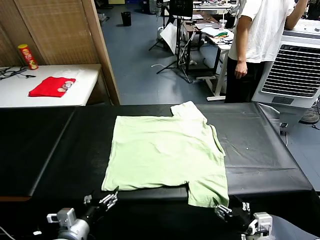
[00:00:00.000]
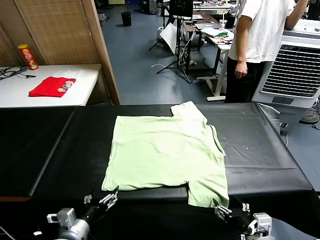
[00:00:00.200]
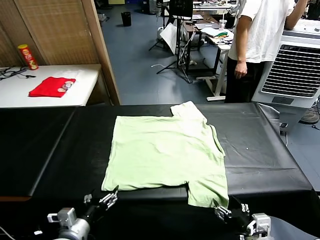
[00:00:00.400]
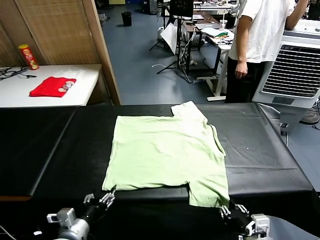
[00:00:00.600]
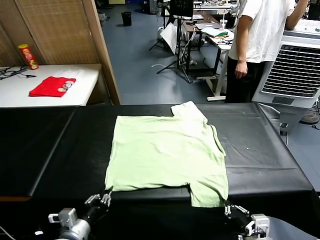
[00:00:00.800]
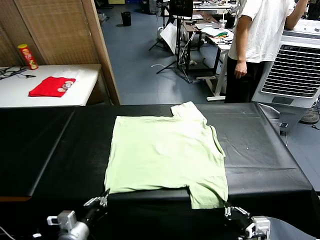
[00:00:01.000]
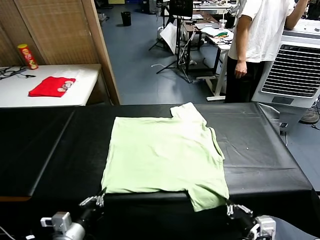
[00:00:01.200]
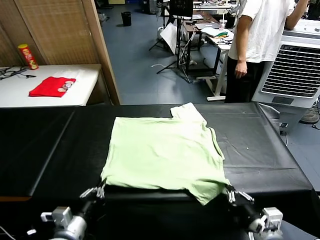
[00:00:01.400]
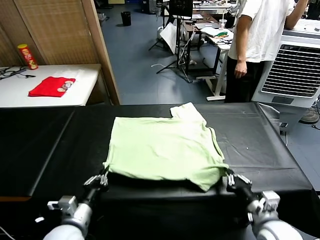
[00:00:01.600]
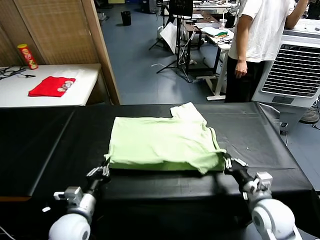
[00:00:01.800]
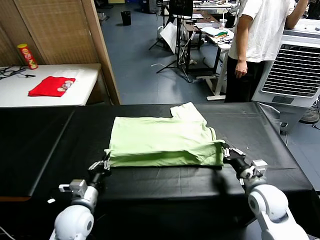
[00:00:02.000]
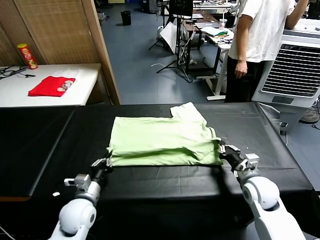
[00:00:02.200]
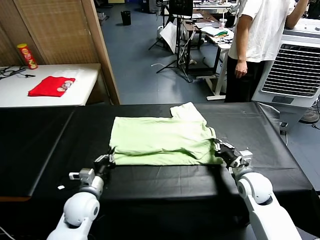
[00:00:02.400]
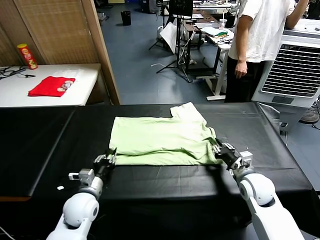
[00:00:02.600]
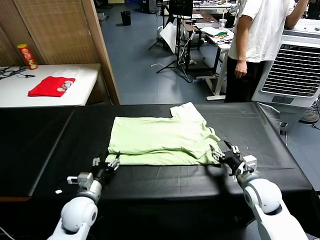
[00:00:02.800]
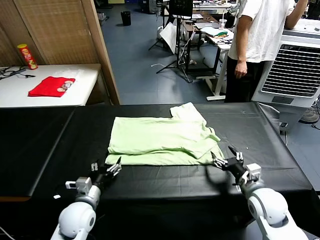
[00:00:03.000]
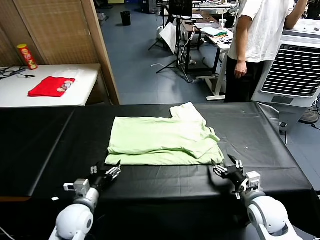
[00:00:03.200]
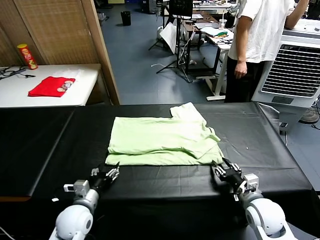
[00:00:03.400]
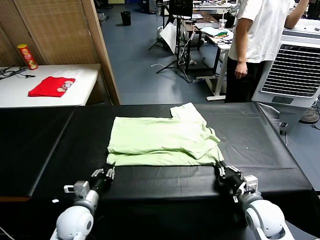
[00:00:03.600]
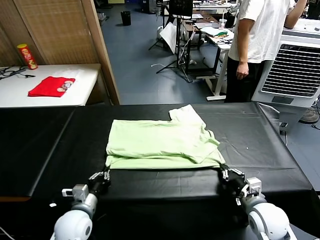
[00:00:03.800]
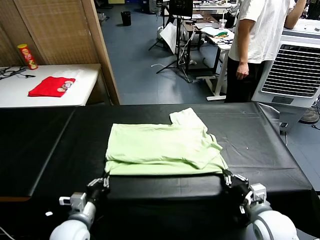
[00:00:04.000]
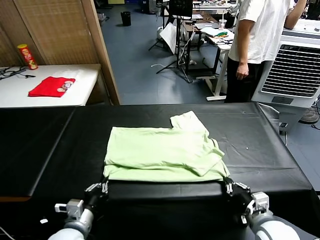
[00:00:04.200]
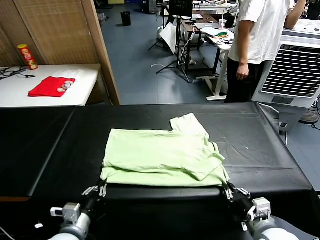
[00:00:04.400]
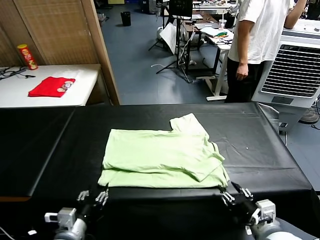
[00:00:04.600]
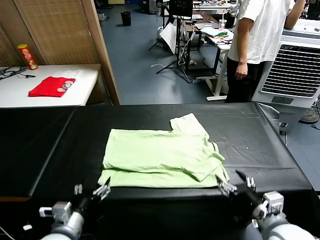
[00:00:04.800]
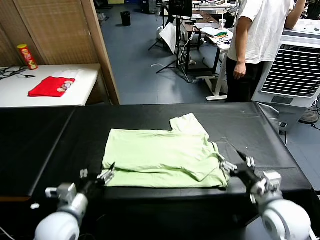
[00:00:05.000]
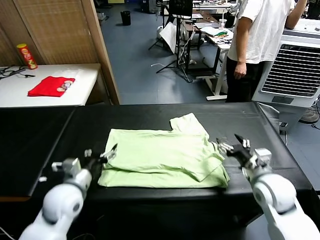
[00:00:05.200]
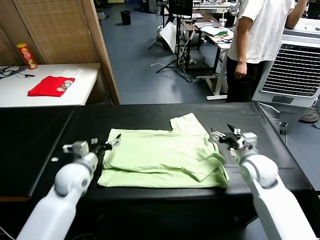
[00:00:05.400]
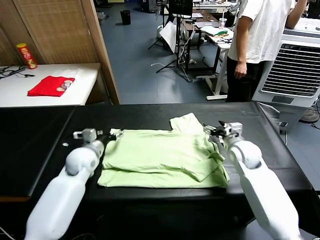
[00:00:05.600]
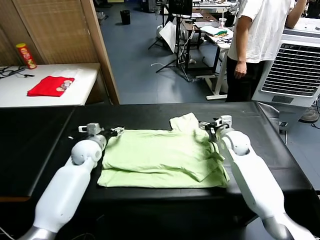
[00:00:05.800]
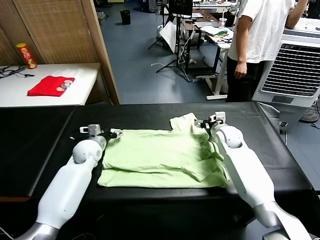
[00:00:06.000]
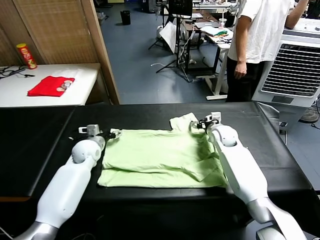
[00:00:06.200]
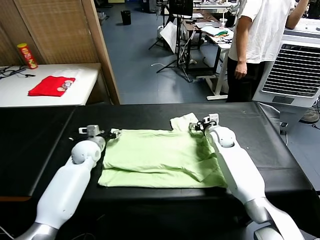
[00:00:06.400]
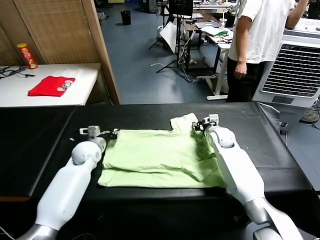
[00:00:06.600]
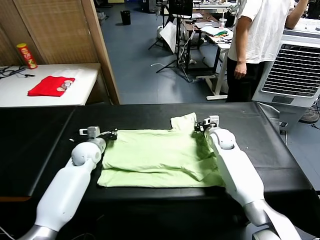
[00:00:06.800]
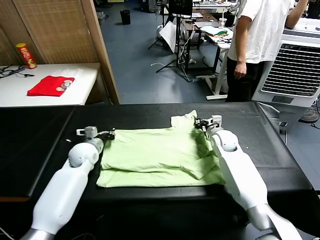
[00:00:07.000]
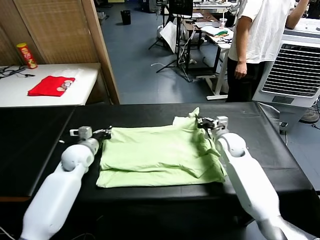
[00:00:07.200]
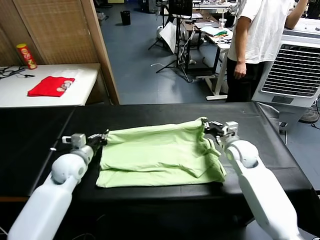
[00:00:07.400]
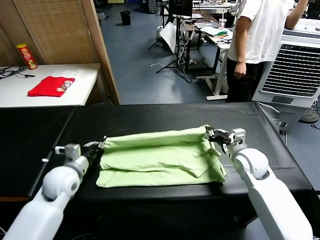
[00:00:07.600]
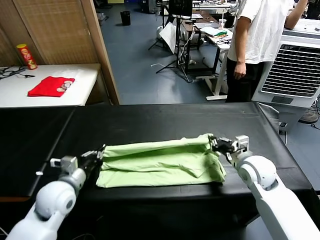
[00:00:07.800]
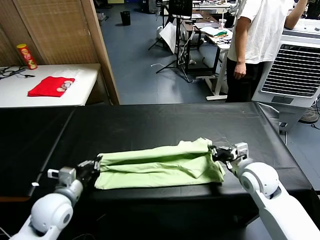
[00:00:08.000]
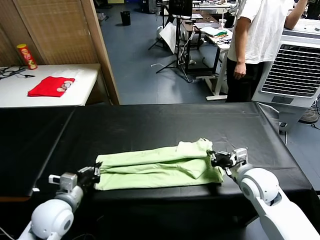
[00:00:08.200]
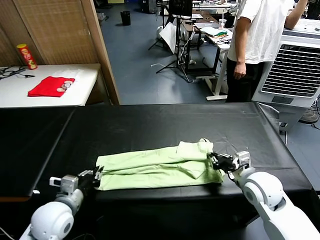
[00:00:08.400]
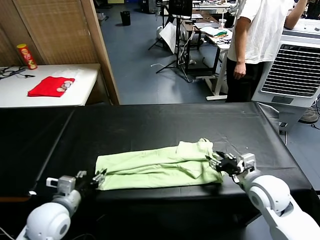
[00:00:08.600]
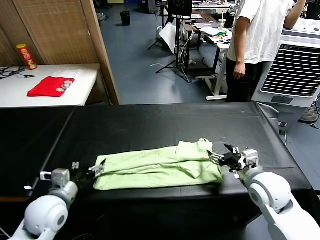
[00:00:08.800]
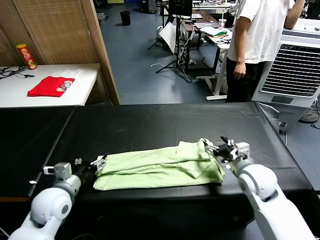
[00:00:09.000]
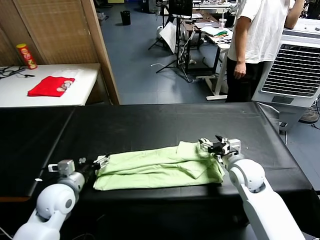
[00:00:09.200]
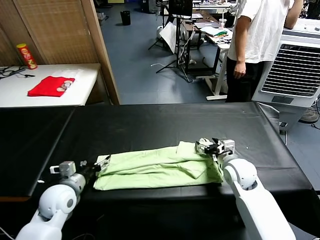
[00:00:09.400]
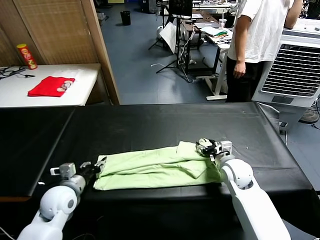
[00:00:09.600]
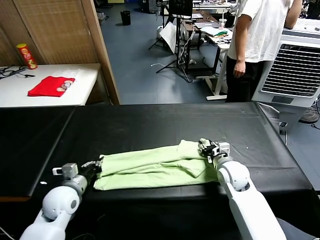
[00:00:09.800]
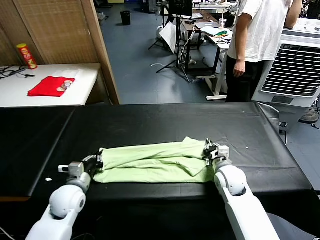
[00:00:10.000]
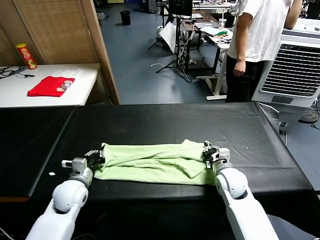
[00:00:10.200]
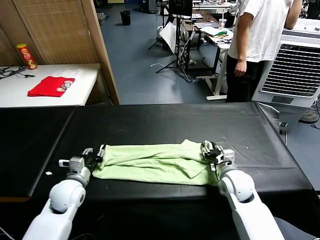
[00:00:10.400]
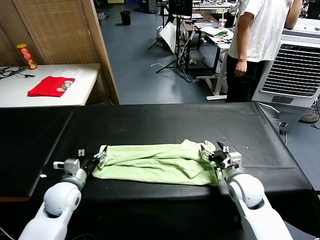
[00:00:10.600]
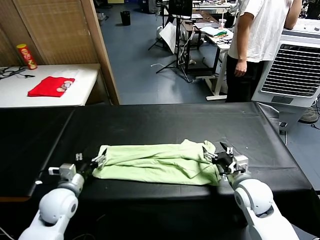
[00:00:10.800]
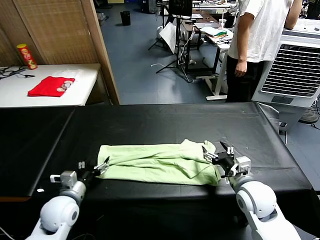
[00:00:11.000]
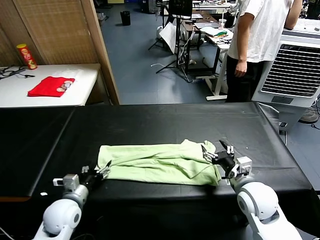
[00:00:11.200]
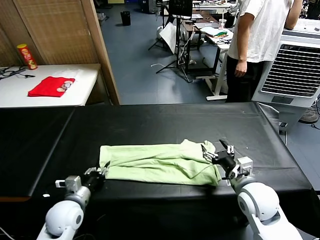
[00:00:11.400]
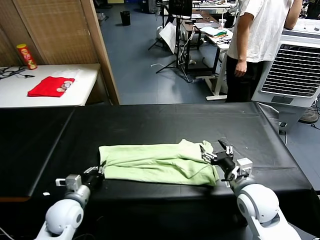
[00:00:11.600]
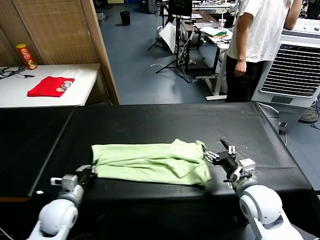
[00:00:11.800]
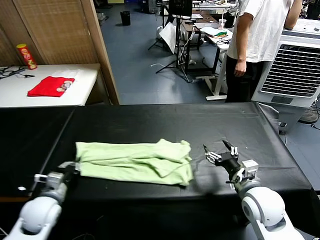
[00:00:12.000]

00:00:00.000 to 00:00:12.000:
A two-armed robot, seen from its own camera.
Task of the whole recording: fold and organize the clothes.
Step, 00:00:00.000 to 00:00:00.800: use both grippers simultaneously to clamp the lower edge of the clothing fabric.
Step, 00:00:01.000 to 00:00:02.600: use both grippers to drag the lower edge of the fabric forward and fold it over the upper edge.
Step, 00:00:02.800 to 00:00:04.400: Drag the clothes downward with both gripper.
Step, 00:00:04.800 to 00:00:06.600: use both grippers simultaneously to clamp the upper edge of the clothing fabric.
Step, 00:00:07.000 to 00:00:08.600: use both grippers to drag the upper edge of the fabric backward and fold it over the lower edge.
Step, 00:00:08.800 to 00:00:11.600: use the left gripper to clamp the left edge of the fabric.
00:00:01.600 to 00:00:03.000: The left gripper heads forward, covering roughly 5 cm, and opens up, while the right gripper moves about 10 cm forward and comes back, and opens its fingers.
00:00:03.000 to 00:00:04.400: Both grippers travel together backward, roughly 10 cm. The right gripper closes, then opens again. Meanwhile the left gripper closes.
00:00:04.400 to 00:00:06.000: The grippers both shift forward by some 35 cm. The left gripper opens its fingers.
00:00:06.000 to 00:00:07.600: The two grippers go approximately 15 cm backward. The left gripper closes its fingers; the right gripper closes up.
00:00:07.600 to 00:00:09.000: The right gripper goes backward and returns, some 10 cm each way, and opens. The left gripper opens up.
00:00:09.000 to 00:00:10.400: The right gripper goes approximately 5 cm downward, and closes, then reopens. The left gripper shifts by some 5 cm, and closes its fingers.
00:00:10.400 to 00:00:12.000: The left gripper is displaced backward and to the left by approximately 10 cm, and closes. The right gripper shifts roughly 10 cm backward and upward.

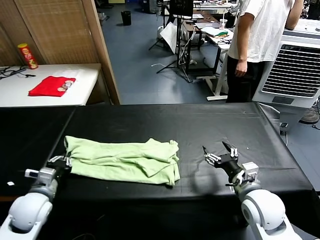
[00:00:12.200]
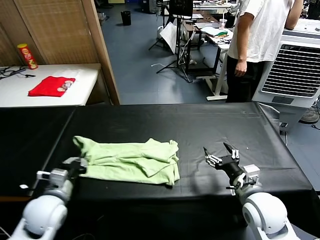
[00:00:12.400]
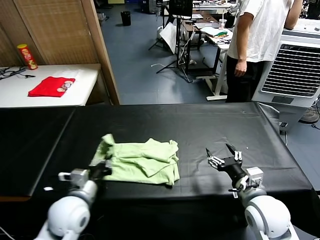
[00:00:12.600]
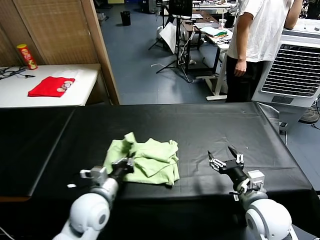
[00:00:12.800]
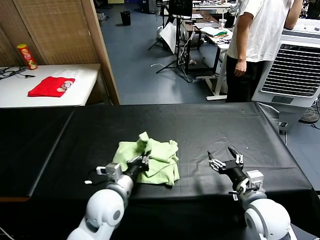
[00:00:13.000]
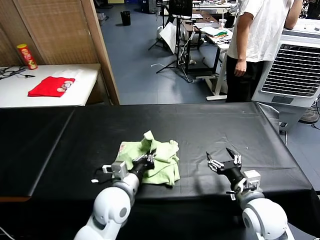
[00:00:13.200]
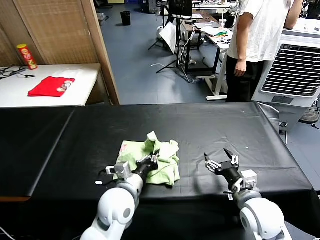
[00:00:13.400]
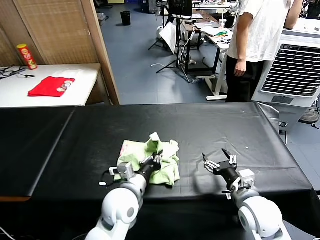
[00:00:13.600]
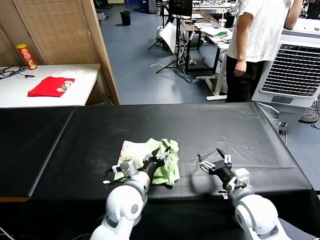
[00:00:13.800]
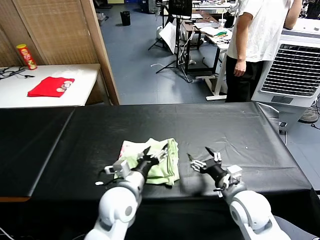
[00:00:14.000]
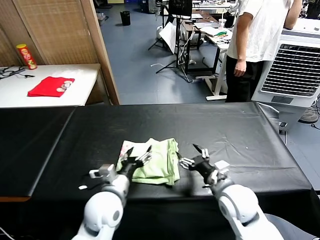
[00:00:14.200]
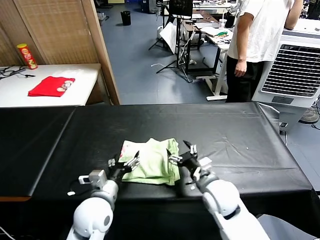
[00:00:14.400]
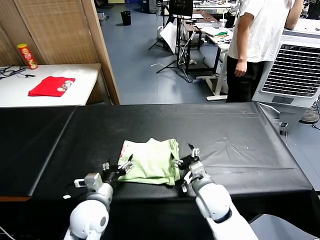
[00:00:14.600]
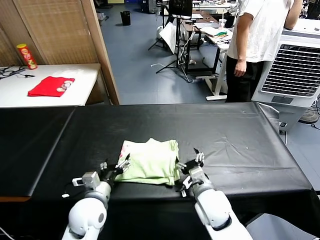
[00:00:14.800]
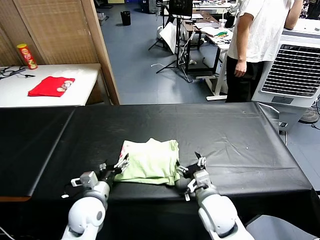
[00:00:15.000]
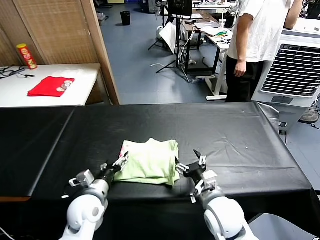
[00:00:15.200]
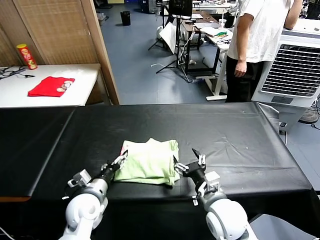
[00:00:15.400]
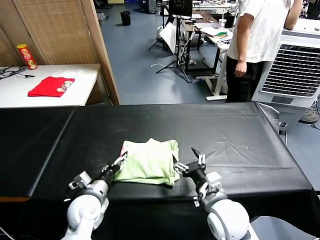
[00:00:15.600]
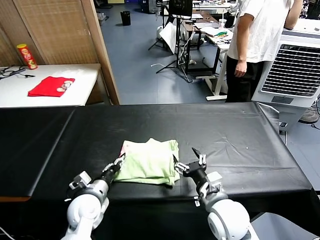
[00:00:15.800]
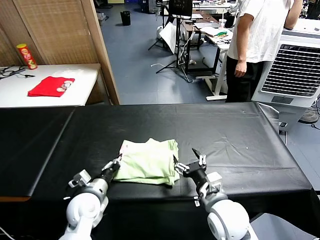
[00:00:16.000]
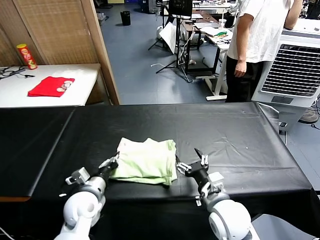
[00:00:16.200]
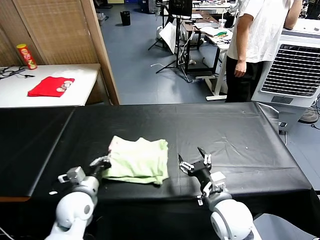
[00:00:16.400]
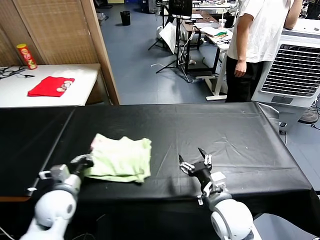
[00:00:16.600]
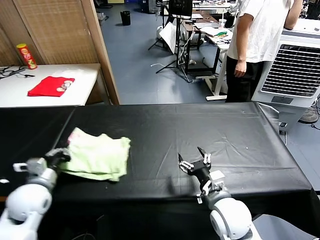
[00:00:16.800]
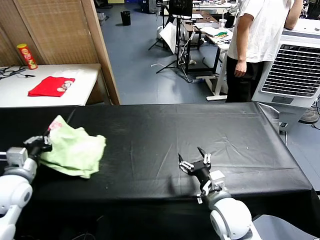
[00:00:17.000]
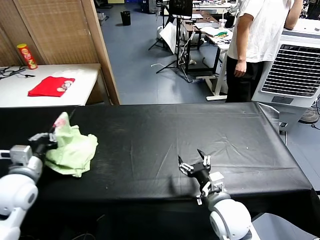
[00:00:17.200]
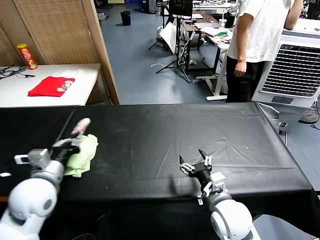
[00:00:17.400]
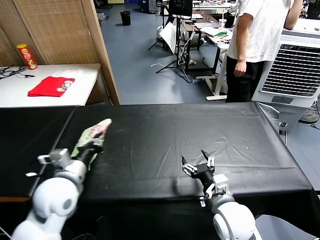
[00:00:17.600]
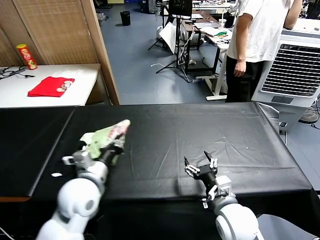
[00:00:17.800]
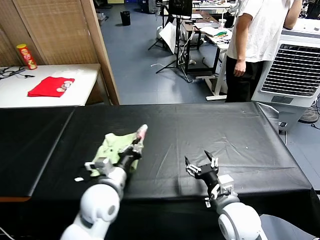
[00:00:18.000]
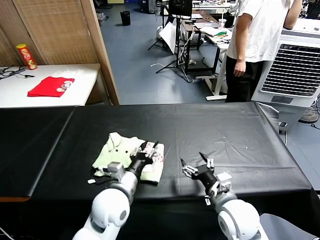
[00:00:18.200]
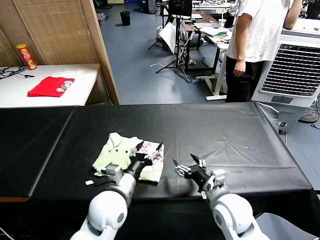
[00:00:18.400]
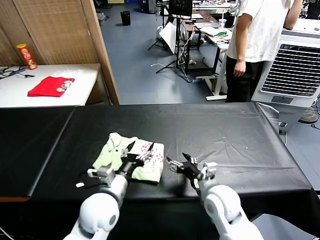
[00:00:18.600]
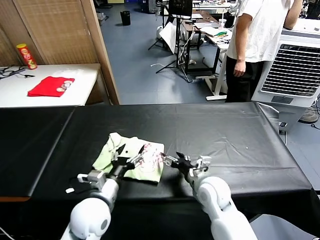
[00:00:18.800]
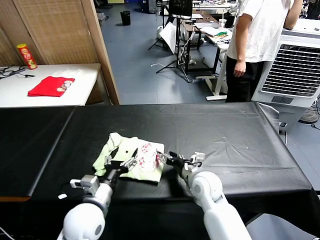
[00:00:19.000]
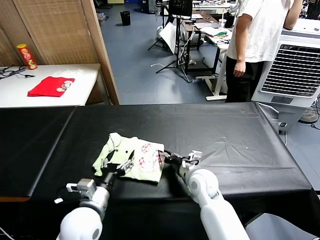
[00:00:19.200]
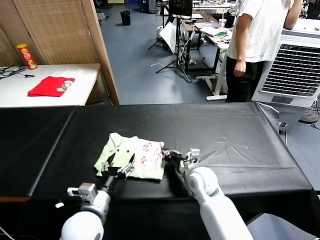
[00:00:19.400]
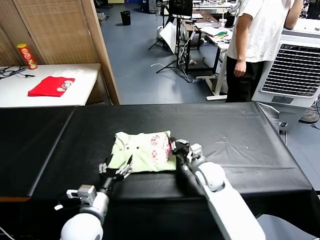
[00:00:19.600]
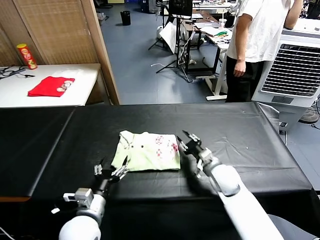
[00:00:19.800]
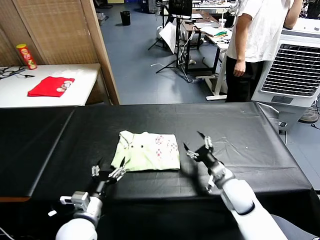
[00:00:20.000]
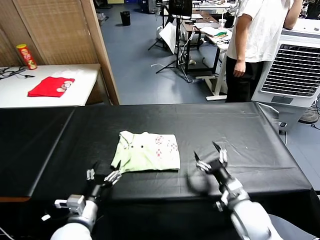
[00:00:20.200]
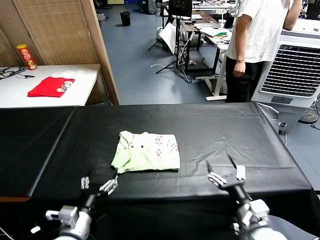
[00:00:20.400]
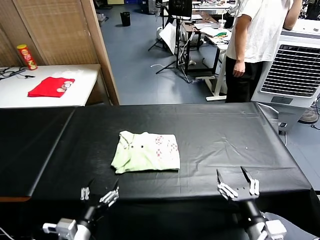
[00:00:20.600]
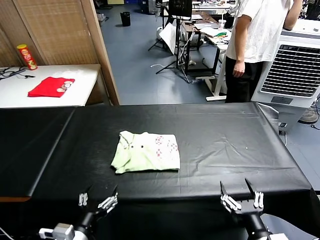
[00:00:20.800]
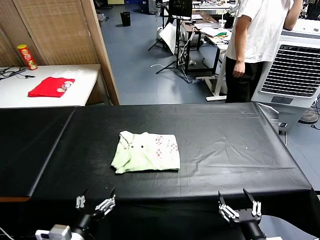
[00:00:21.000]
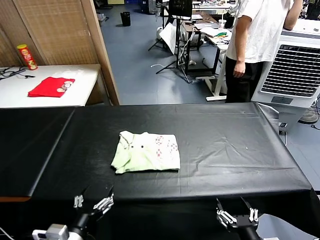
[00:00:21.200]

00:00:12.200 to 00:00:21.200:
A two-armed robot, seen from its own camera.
Task of the whole recording: fold and organize the clothes.
Step, 00:00:12.200 to 00:00:13.800: use the left gripper to drag the left edge of the fabric to the left and folds it over the right edge.
Step, 00:00:14.000 to 00:00:18.200: Flip the folded clothes over with left gripper.
Step, 00:00:18.400 to 00:00:19.600: Drag the clothes to the center of the table.
00:00:12.200 to 00:00:13.800: The left gripper shifts some 25 cm to the right, and opens.
00:00:13.800 to 00:00:15.200: The right gripper heads to the left, covering about 10 cm. The left gripper heads to the left and downward, covering some 15 cm, and opens its fingers.
00:00:15.200 to 00:00:16.600: The left gripper is displaced to the left by approximately 5 cm, and closes its fingers.
00:00:16.600 to 00:00:18.200: The left gripper travels to the right by some 15 cm, and opens.
00:00:18.200 to 00:00:19.800: The right gripper shifts roughly 15 cm forward, and closes its fingers. The left gripper moves to the left and backward, roughly 10 cm, and opens.
00:00:19.800 to 00:00:21.200: The right gripper heads backward, covering some 30 cm, and opens. The left gripper heads backward, covering roughly 10 cm.
